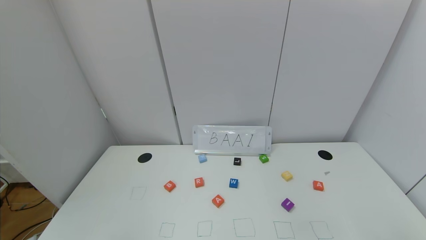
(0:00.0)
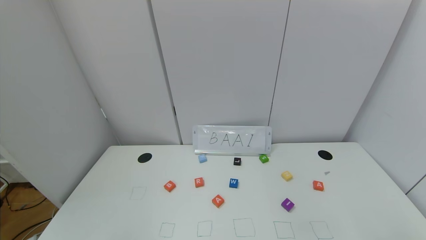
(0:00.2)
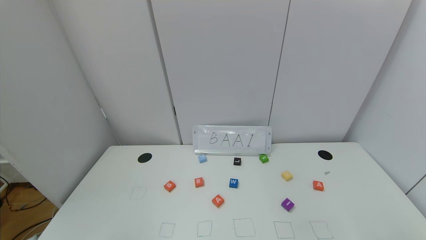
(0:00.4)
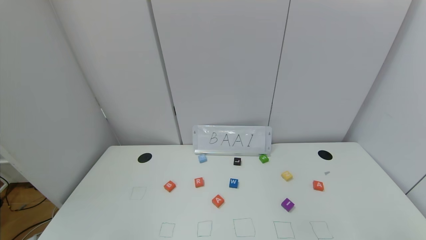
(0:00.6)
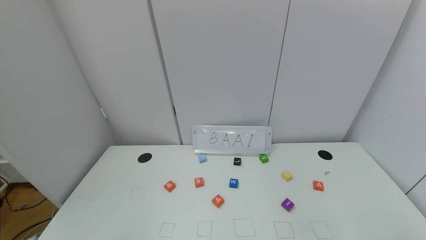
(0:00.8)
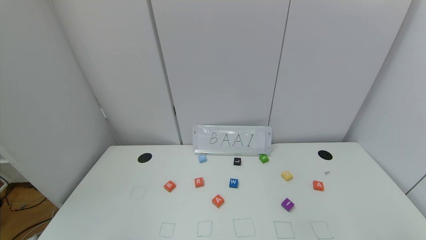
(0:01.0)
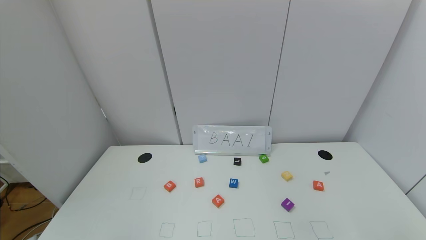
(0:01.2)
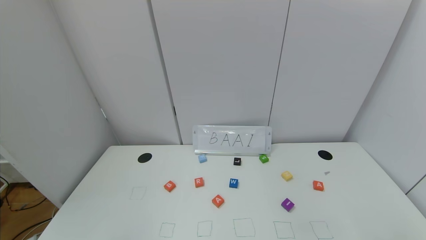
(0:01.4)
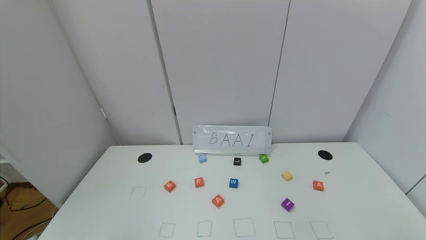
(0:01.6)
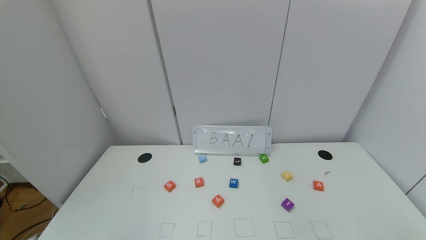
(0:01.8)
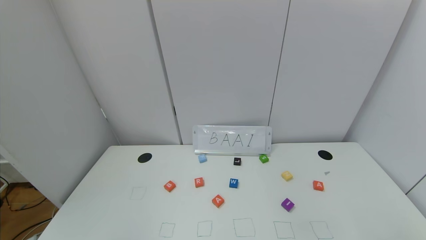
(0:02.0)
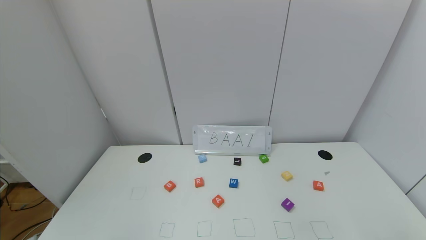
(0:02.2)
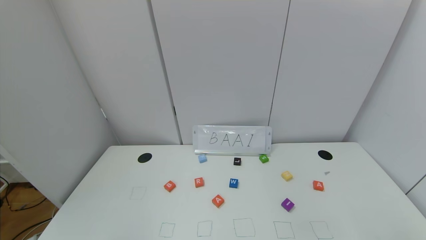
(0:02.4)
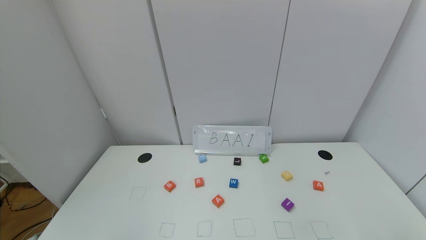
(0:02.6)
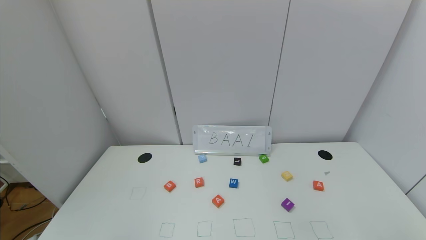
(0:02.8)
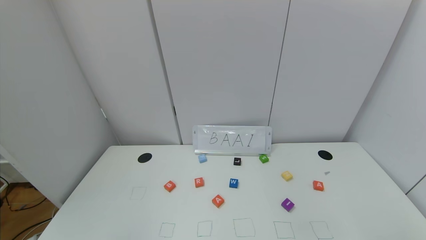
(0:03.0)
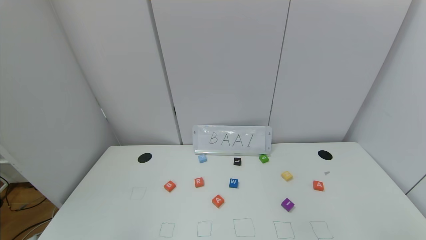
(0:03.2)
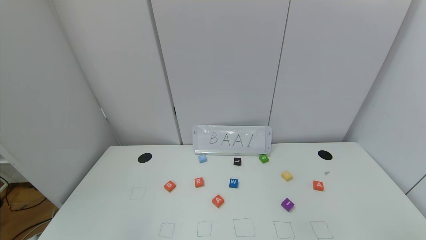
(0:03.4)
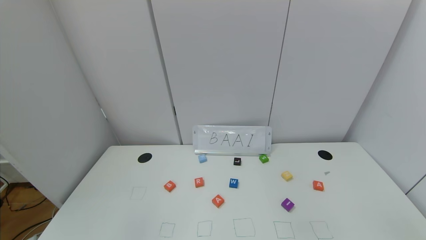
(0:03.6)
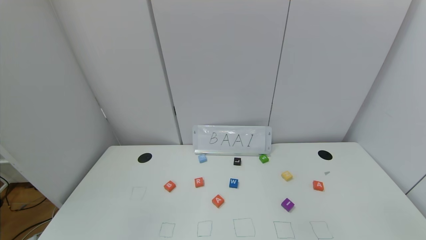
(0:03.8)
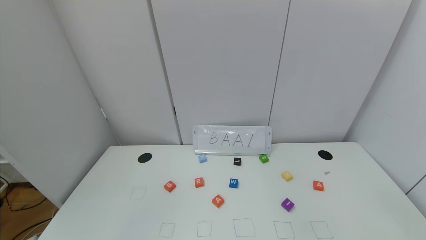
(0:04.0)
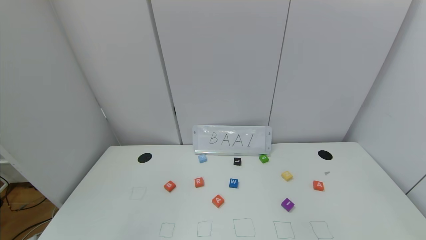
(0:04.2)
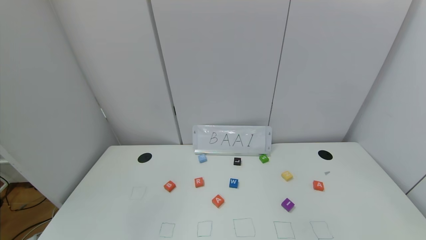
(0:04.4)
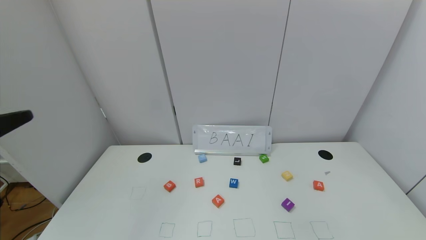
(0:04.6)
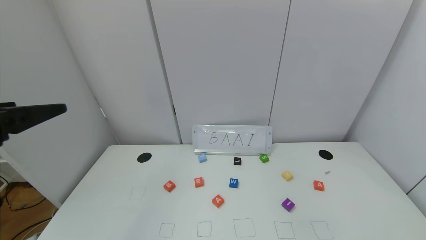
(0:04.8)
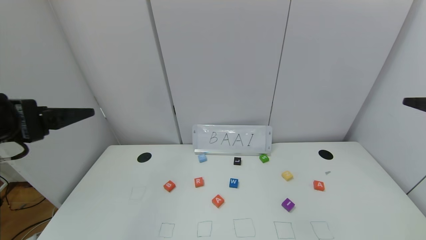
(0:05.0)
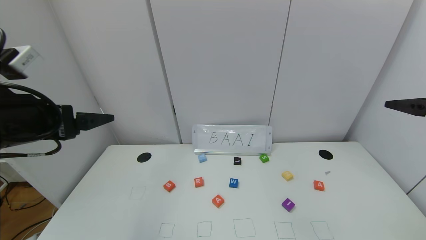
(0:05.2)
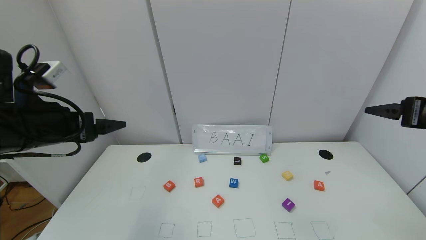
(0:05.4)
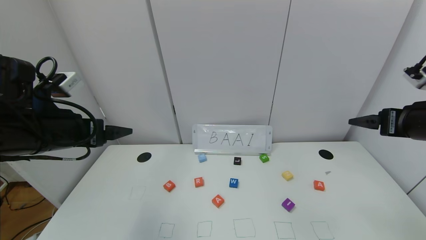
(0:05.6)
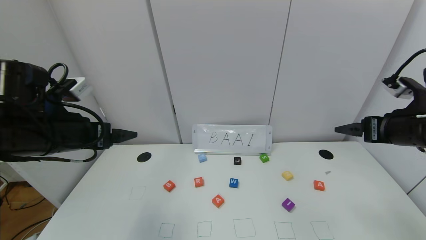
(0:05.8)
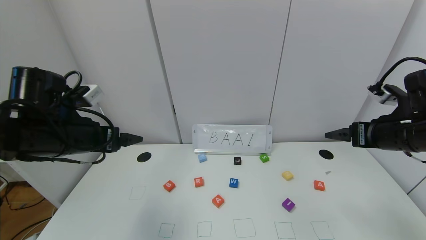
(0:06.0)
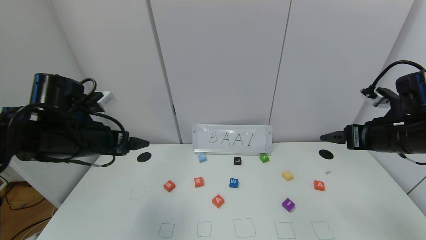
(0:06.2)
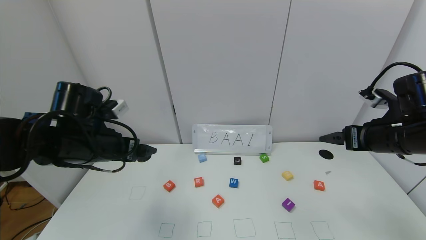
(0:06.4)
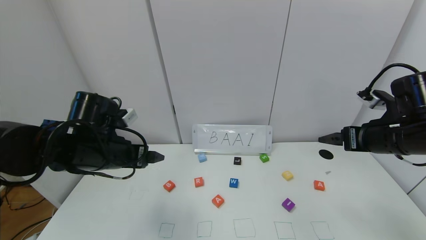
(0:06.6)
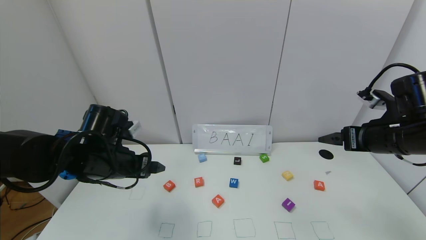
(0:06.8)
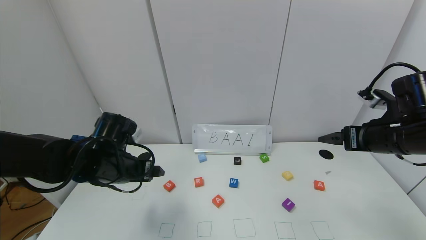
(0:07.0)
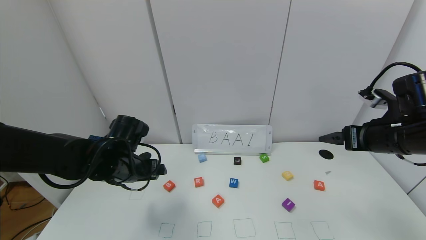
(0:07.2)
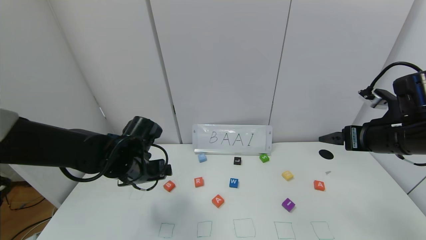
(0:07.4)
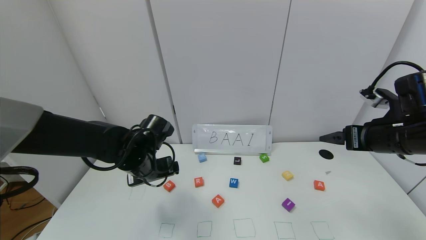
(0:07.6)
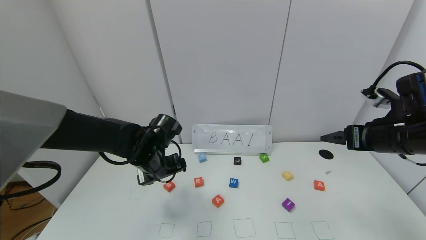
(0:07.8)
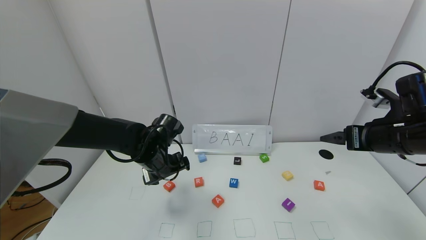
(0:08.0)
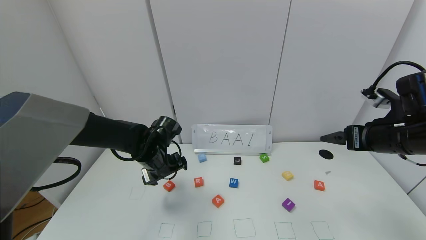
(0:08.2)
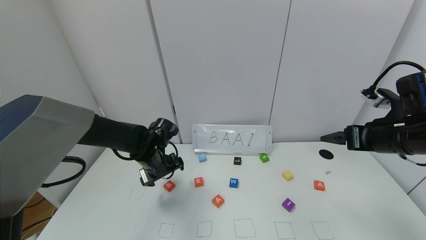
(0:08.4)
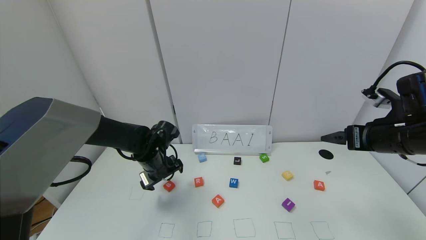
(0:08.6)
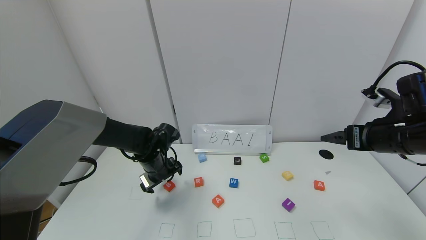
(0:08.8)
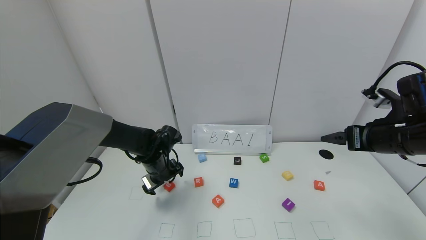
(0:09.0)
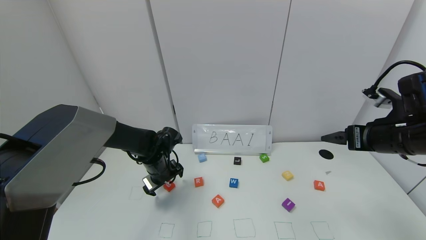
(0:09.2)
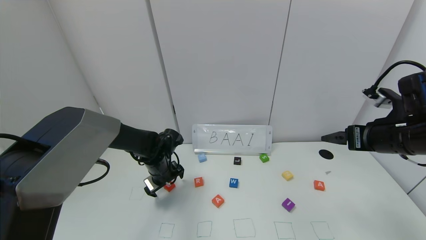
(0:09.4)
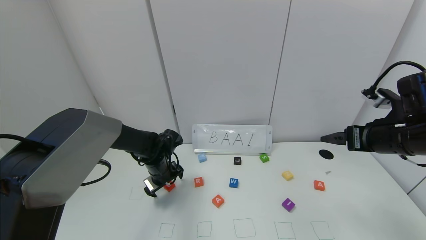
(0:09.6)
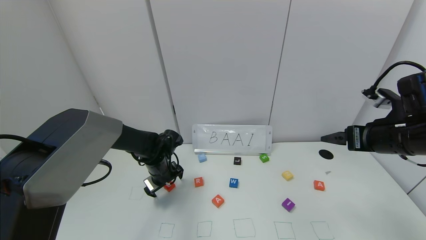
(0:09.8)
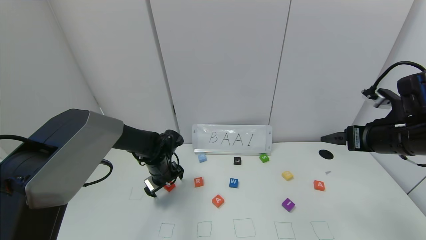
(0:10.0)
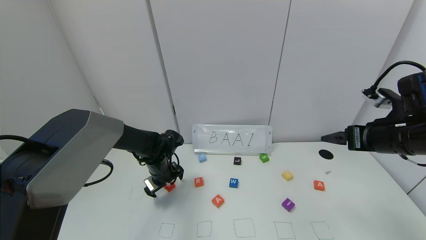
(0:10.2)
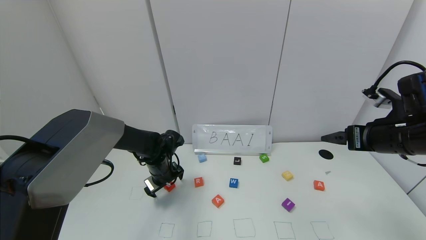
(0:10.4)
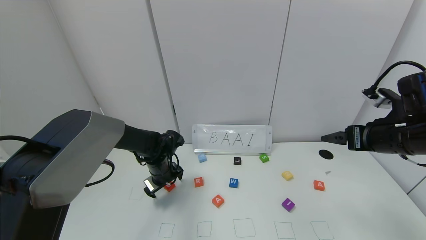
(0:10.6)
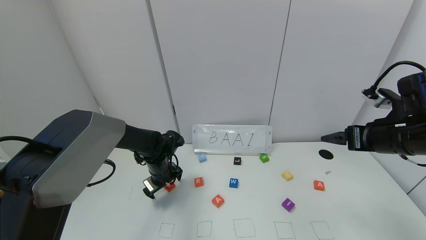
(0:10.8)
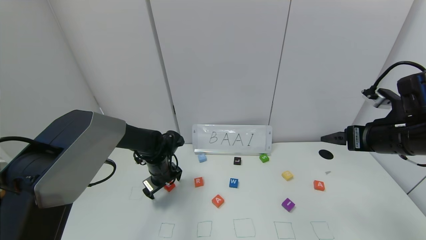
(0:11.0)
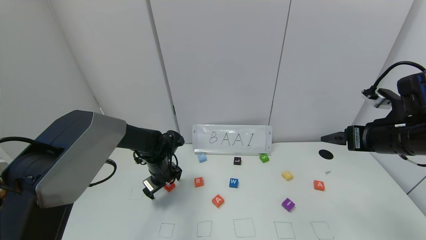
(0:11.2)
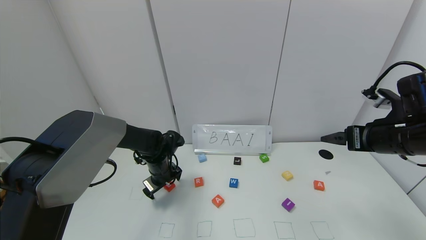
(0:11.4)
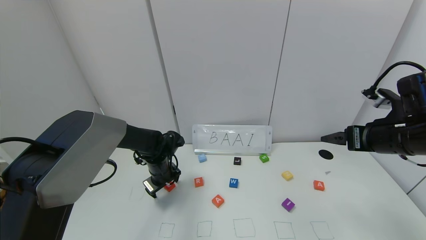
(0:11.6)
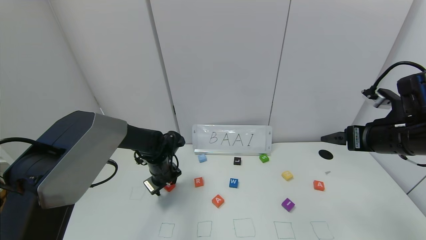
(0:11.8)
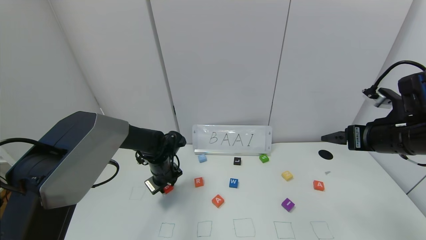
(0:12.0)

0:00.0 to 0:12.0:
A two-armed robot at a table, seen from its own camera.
Task of the whole recording: use the gripper to find blocks with the letters b, a, a, and i on the table and arrange them into BAAI, then find r and N and turn the arranged baai into brian.
0:00.0 to 0:01.6: Both grippers stay about where they are.
0:04.4 to 0:06.0: The grippers both shift forward by some 25 cm.
0:06.0 to 0:07.6: The left gripper heads downward, to the right and forward, covering roughly 15 cm.
0:07.6 to 0:09.0: The left gripper goes roughly 10 cm forward and downward.
0:09.0 to 0:10.4: The grippers stay close to where they were, moving slightly.
0:10.4 to 0:12.0: The left gripper closes up.

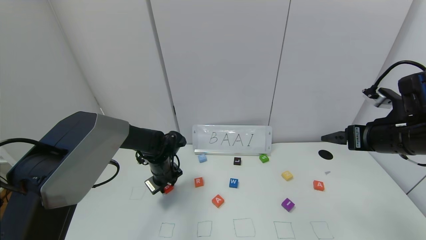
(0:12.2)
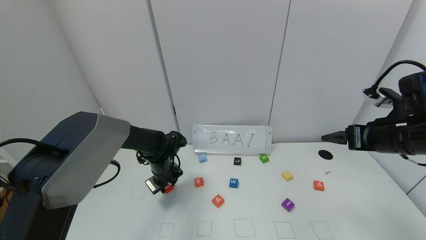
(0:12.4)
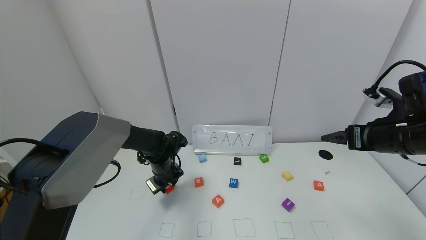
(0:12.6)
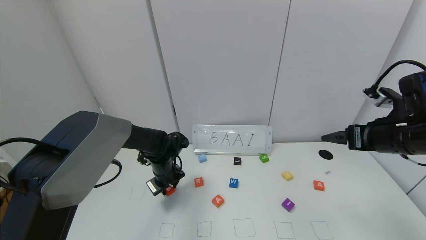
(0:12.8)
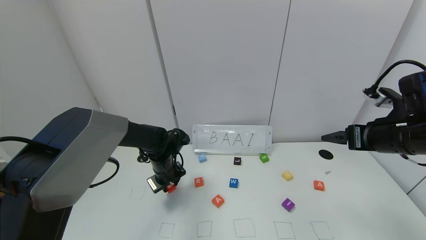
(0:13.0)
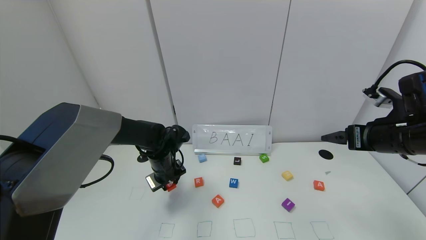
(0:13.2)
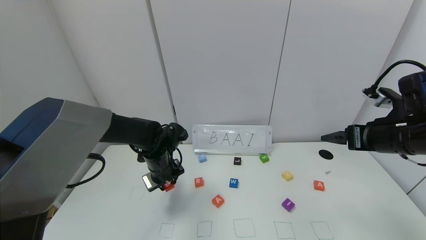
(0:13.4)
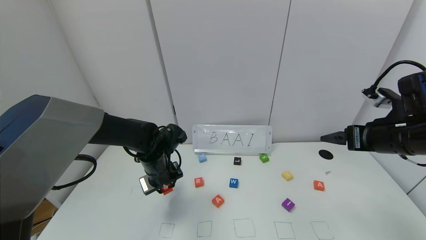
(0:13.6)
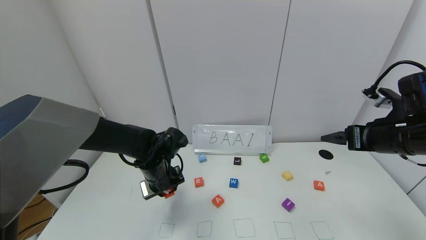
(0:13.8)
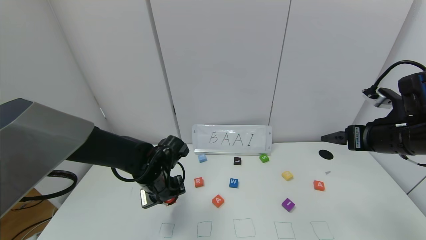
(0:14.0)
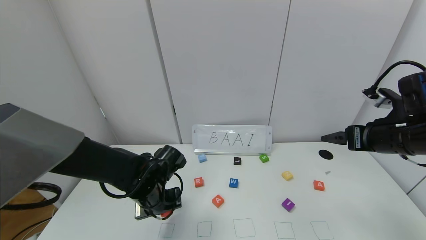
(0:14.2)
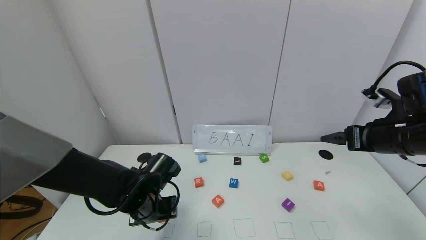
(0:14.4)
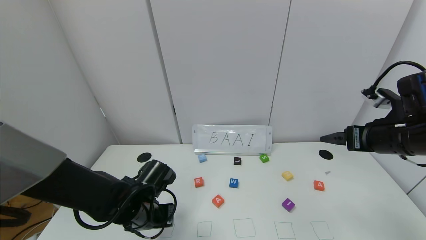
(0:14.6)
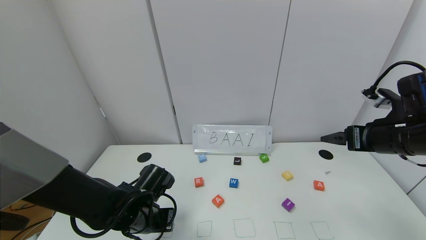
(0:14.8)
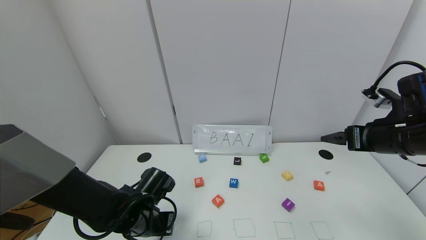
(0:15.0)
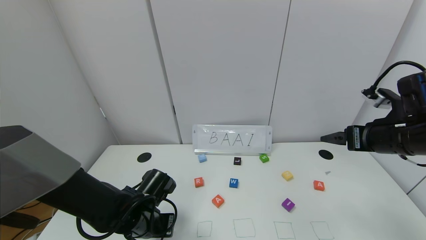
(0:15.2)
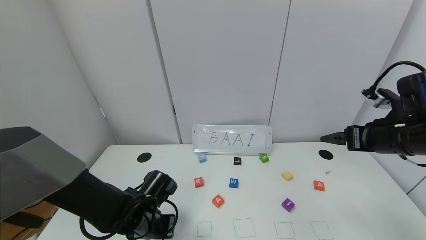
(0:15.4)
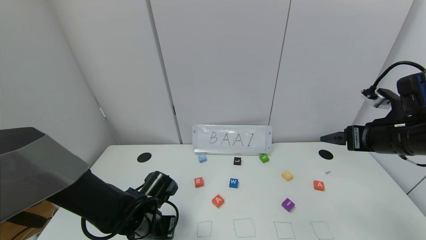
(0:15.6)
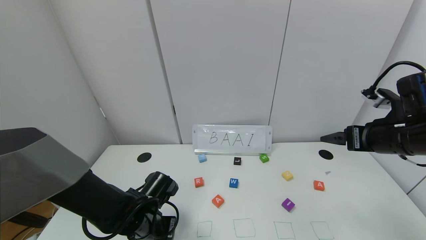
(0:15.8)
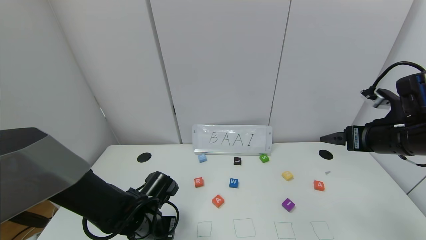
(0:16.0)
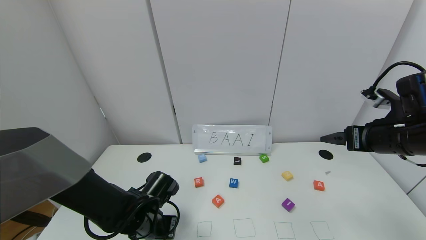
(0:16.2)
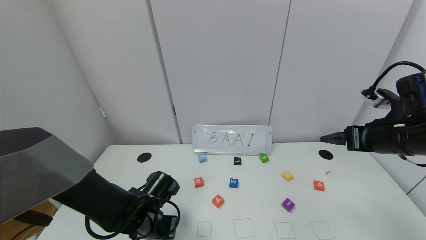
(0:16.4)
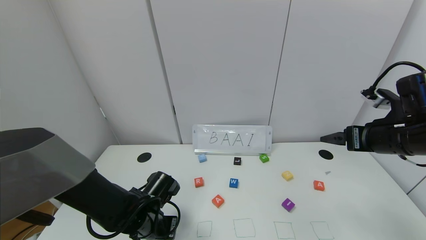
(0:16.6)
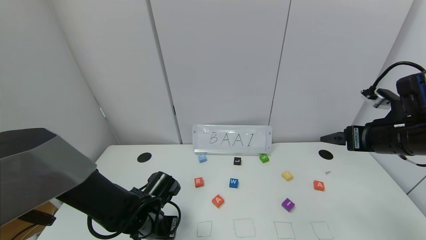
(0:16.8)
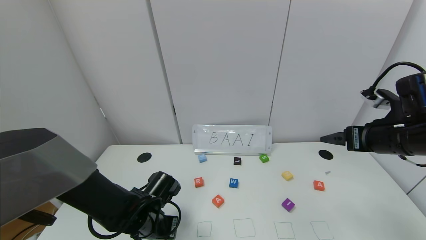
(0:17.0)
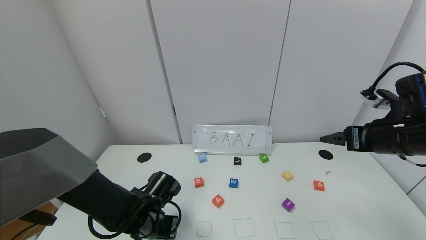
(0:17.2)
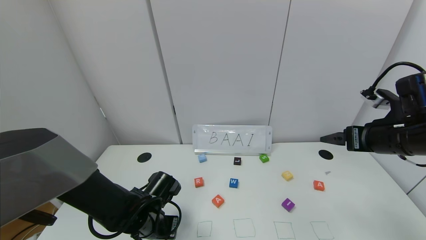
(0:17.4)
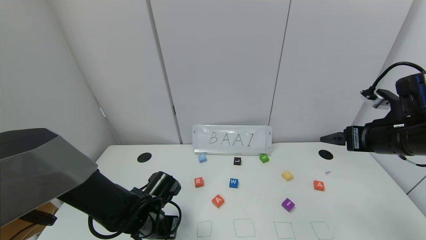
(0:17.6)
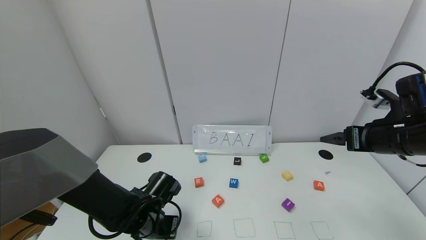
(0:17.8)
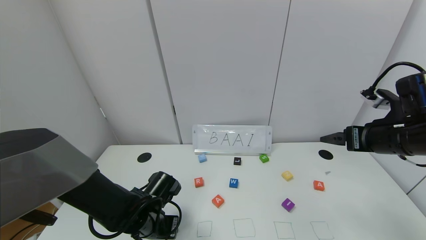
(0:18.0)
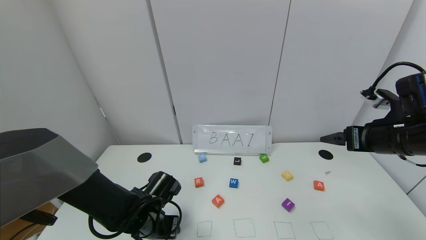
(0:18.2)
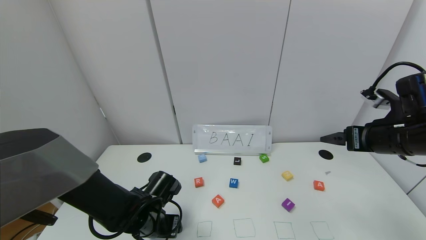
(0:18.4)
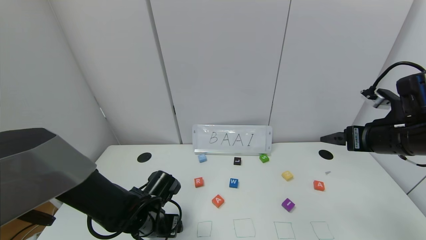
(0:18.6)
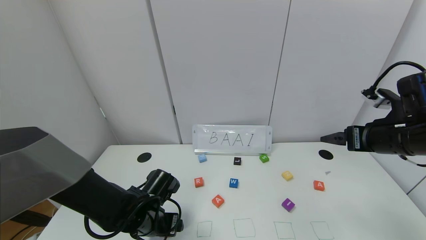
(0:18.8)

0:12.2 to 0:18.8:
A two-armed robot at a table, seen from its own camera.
Task of the whole recording: use the gripper to find blocks with the letters b, a, a, and i on the table and arrange them into BAAI, then find r and N and turn the arranged baai into brian.
Step, 0:12.2 to 0:18.4: Place the block B in the first location.
0:12.2 to 0:13.8: The left gripper goes about 10 cm backward and upward.
0:13.8 to 0:15.4: The left gripper is displaced backward and downward by about 10 cm.
0:15.4 to 0:17.2: Both grippers stay about where they are.
0:17.2 to 0:18.8: The left gripper opens its fingers.
